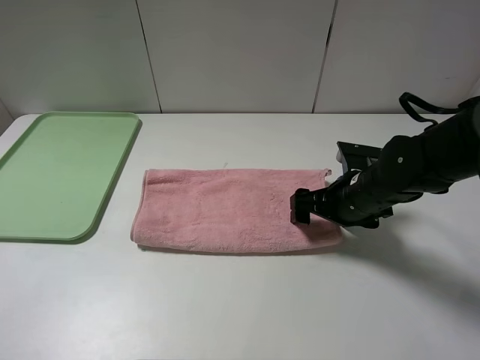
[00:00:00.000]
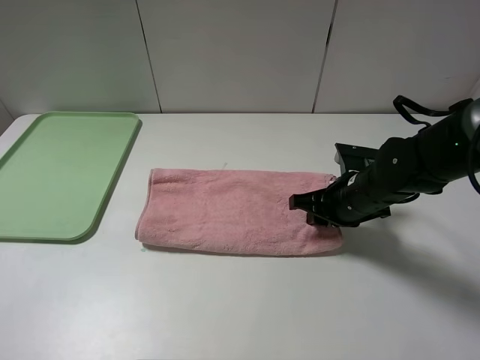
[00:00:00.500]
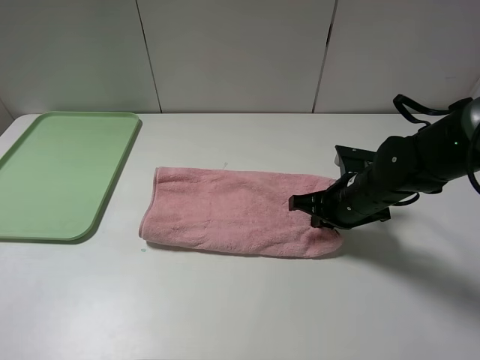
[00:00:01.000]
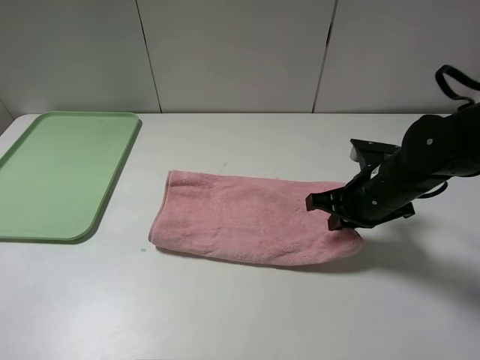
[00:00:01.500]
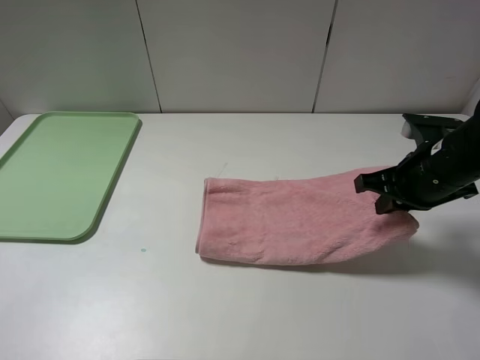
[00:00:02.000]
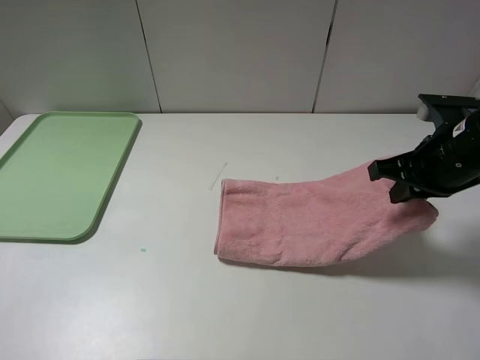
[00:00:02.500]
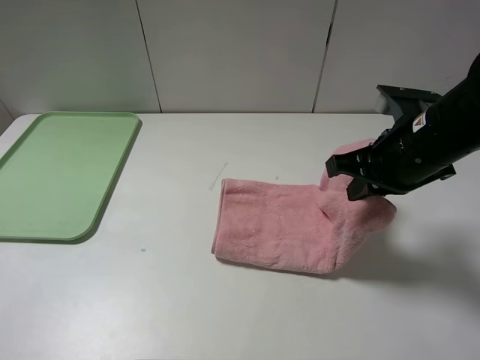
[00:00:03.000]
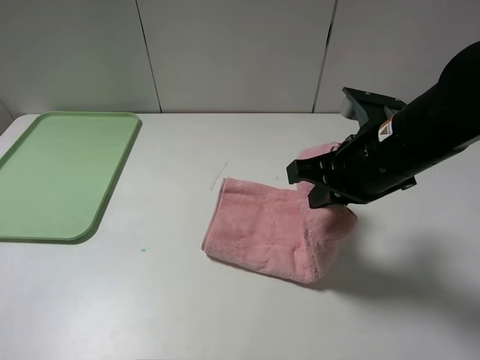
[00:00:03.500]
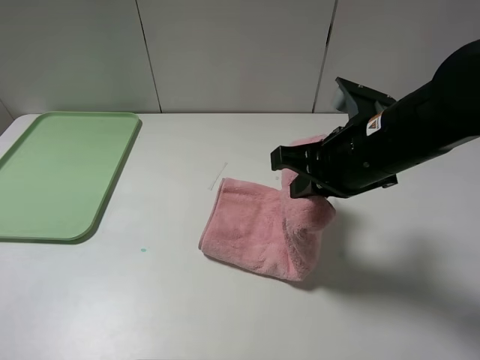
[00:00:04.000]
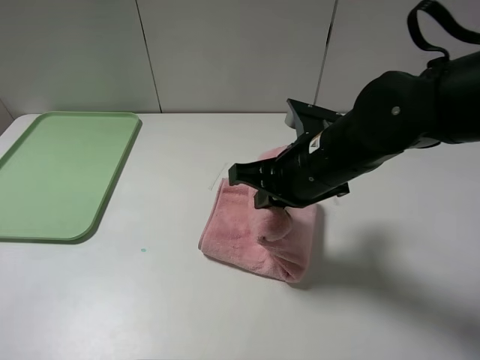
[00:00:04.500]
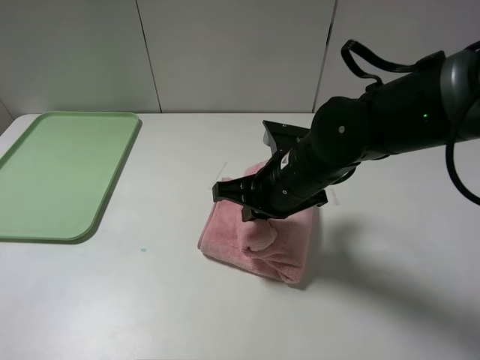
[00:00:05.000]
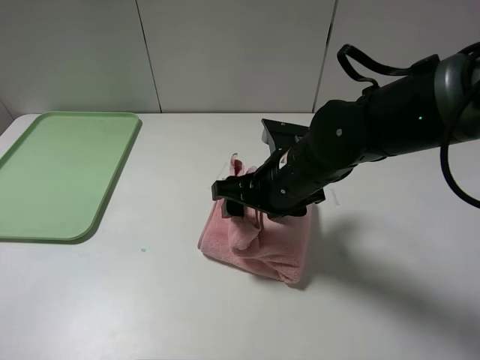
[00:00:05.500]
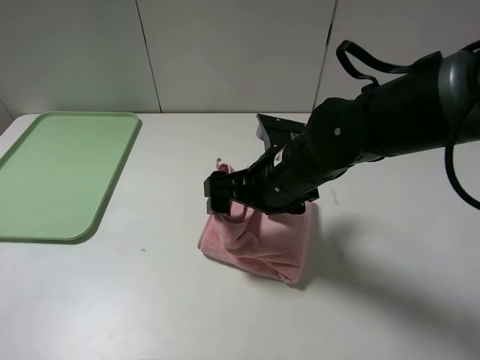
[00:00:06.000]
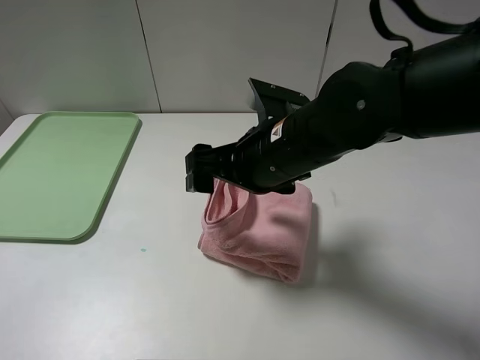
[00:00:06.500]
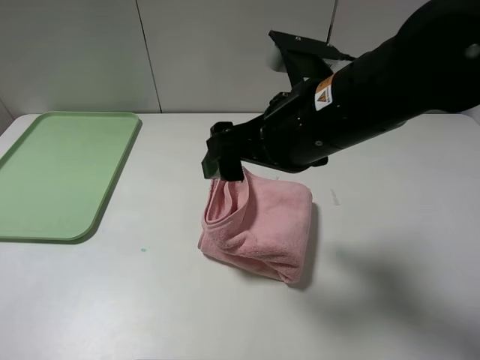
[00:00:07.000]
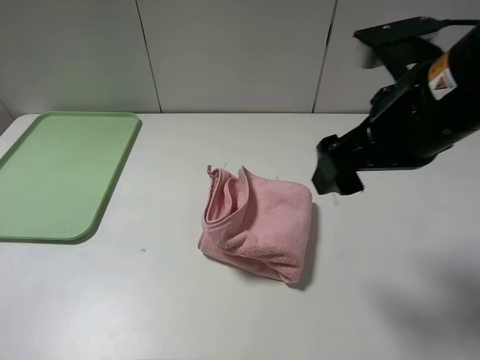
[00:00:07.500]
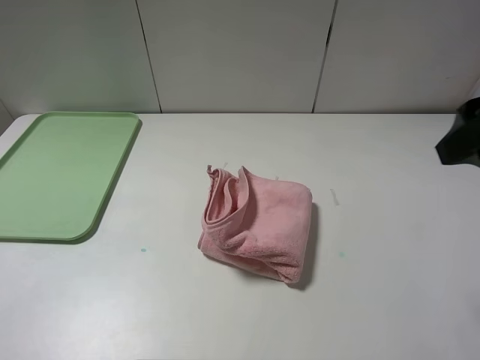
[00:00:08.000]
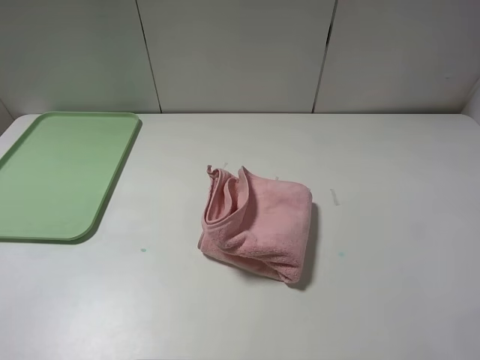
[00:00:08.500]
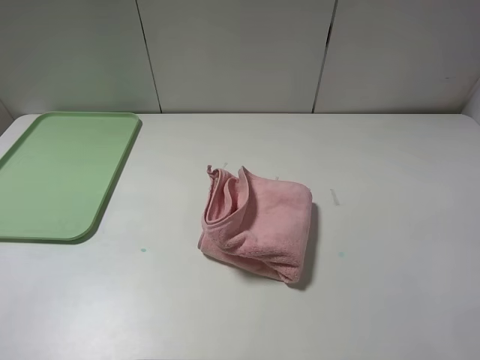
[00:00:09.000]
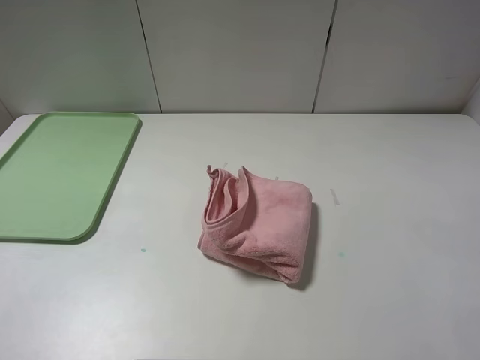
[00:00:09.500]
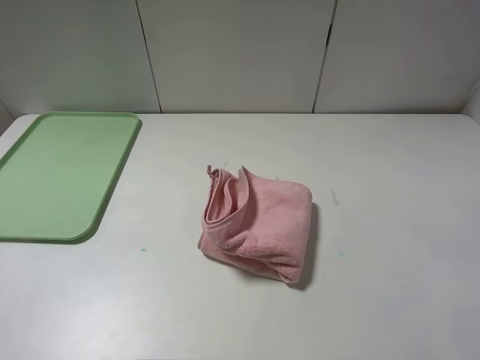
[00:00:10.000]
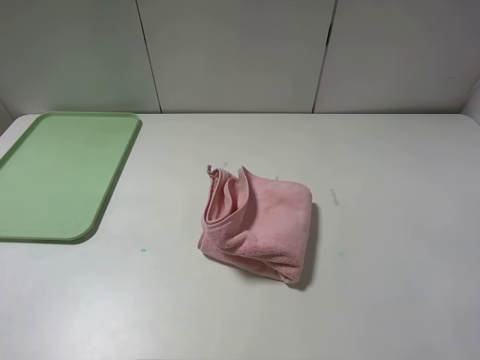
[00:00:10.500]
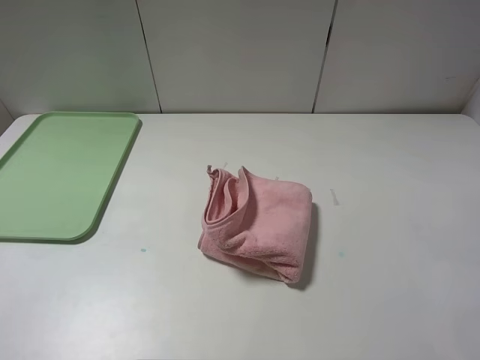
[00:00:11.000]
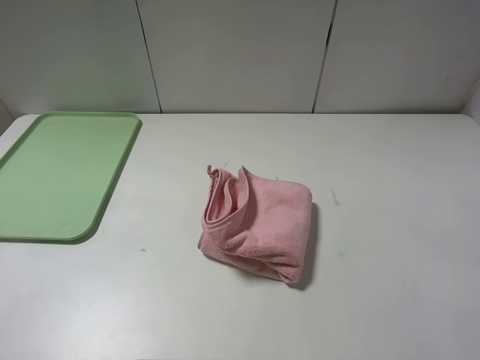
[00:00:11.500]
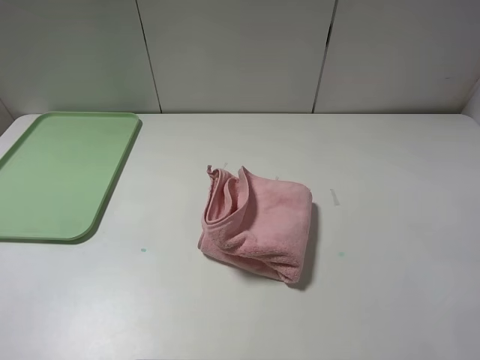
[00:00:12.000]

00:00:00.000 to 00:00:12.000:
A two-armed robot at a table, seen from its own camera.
Step, 00:00:00.000 to 00:00:07.000: Fold the pink towel from right to left with right gripper.
00:00:00.000 to 00:00:02.000: The right gripper moves upward and to the right, about 10 cm, and closes its fingers.
00:00:02.000 to 00:00:04.000: The right gripper is displaced to the left and upward by some 10 cm.
00:00:04.000 to 00:00:06.000: The right gripper moves to the left and downward, about 10 cm, and opens.
00:00:06.000 to 00:00:08.000: The right gripper travels to the right, upward and backward by about 25 cm.
00:00:08.000 to 00:00:10.000: The right gripper goes some 15 cm backward.

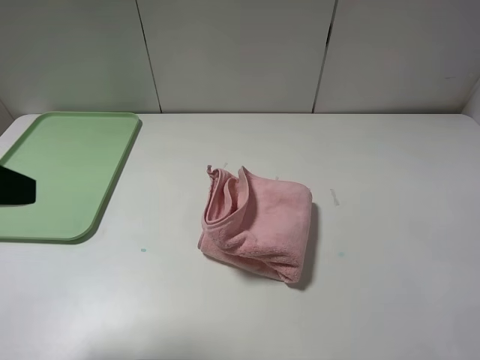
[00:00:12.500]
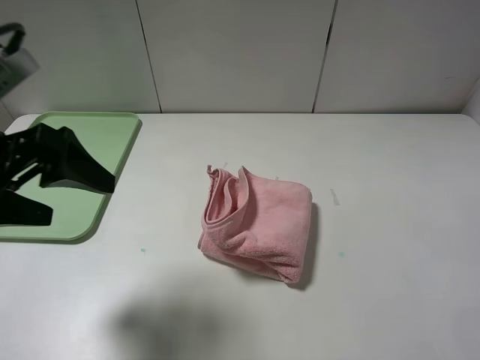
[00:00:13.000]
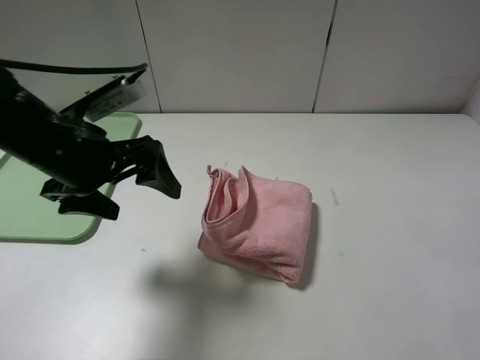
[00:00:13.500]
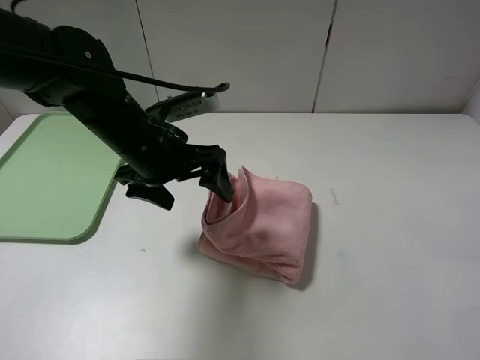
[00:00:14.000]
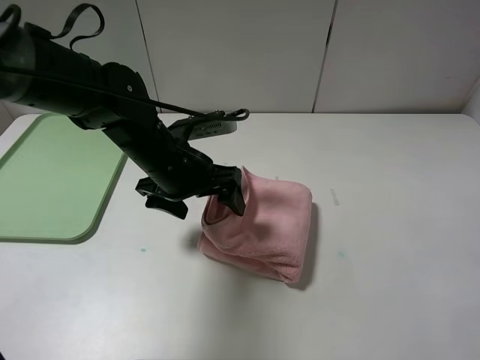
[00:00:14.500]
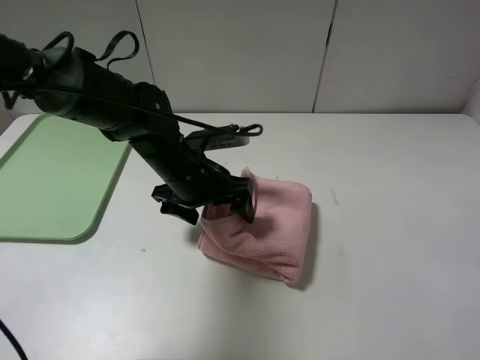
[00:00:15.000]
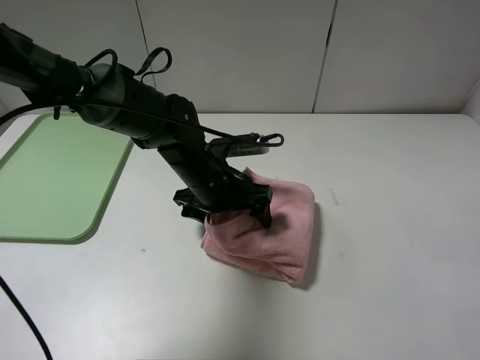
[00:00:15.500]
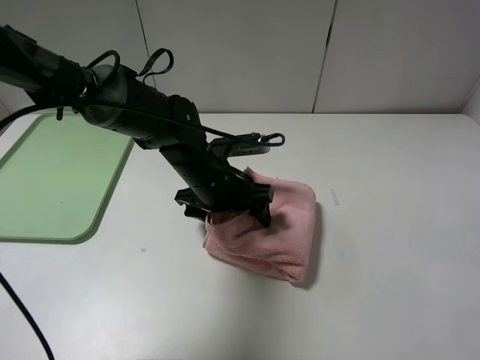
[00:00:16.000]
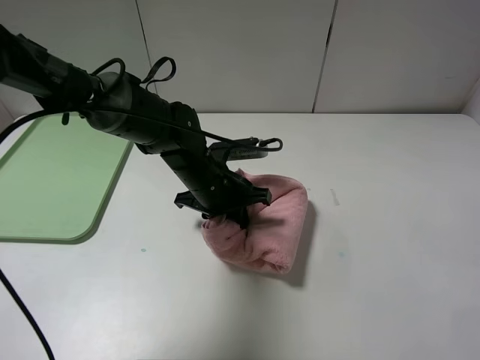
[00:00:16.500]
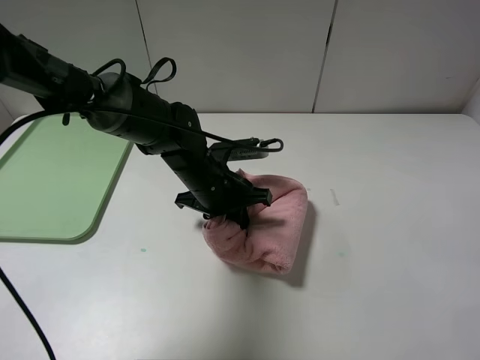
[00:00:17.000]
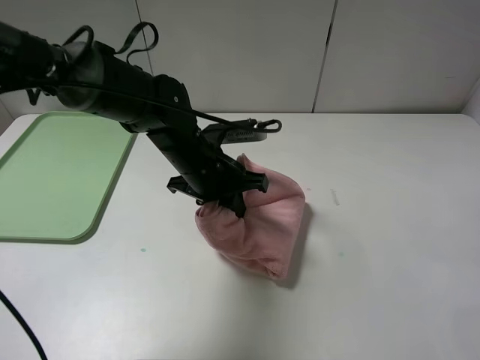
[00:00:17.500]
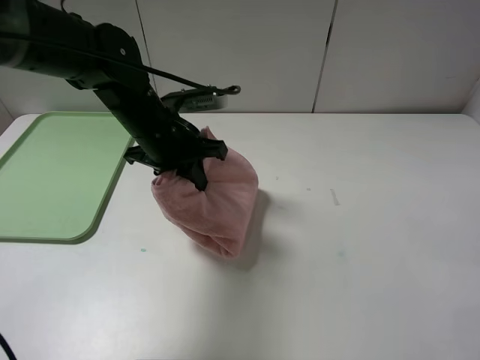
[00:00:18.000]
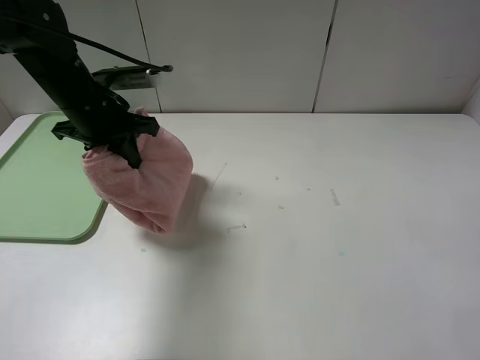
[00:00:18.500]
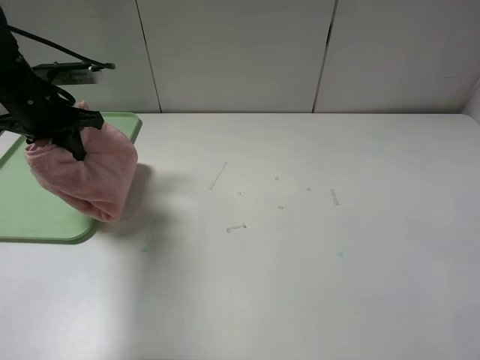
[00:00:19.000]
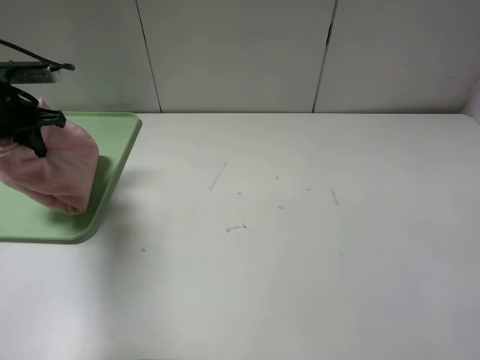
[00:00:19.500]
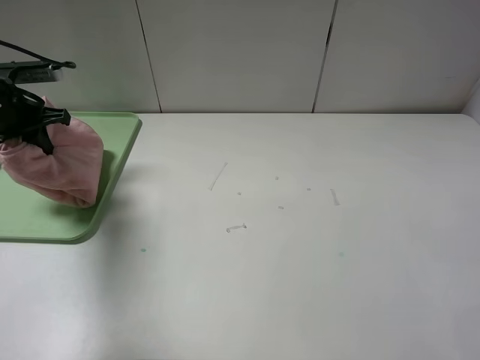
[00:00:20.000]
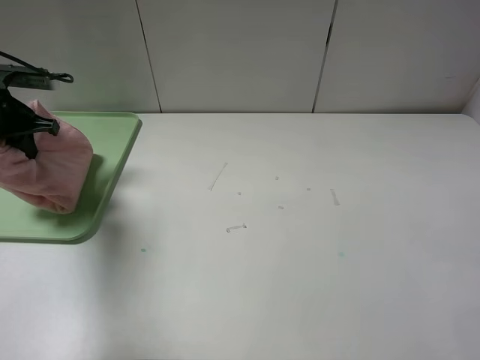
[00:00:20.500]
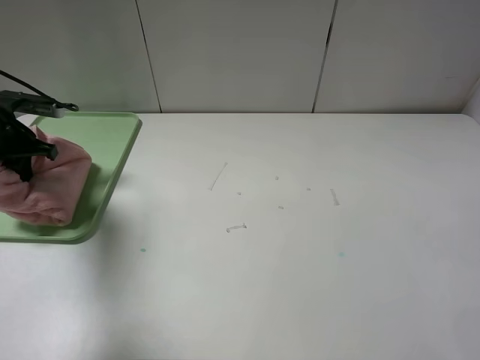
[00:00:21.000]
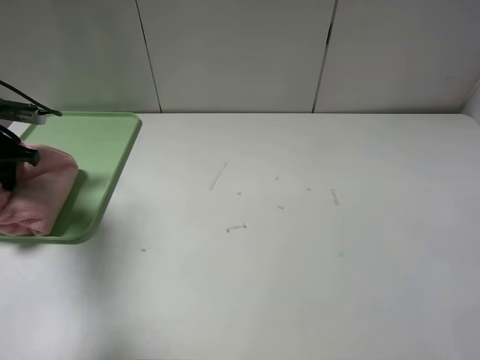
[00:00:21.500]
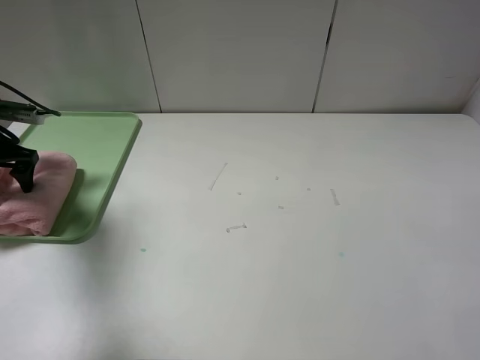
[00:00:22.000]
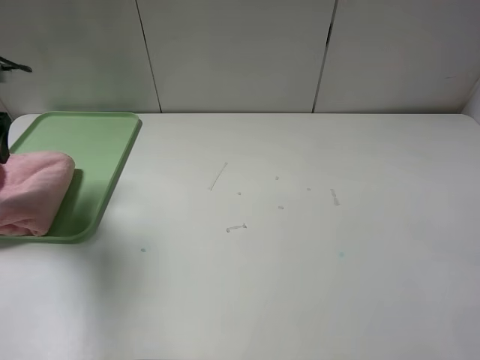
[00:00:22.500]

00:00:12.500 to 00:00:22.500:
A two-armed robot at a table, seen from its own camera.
Step, 00:00:12.500 to 00:00:22.500: Place the folded pink towel on the tray with the left gripper.
00:00:12.500 to 00:00:14.500: The left gripper travels forward, to the right and downward by approximately 30 cm.
00:00:14.500 to 00:00:16.500: The left gripper travels downward by roughly 5 cm, and closes its fingers.
00:00:16.500 to 00:00:18.500: The left gripper travels to the left and upward by about 20 cm.
00:00:18.500 to 00:00:20.500: The left gripper heads to the left, covering about 15 cm.
00:00:20.500 to 00:00:22.500: The left gripper is displaced upward by roughly 5 cm, and opens its fingers.

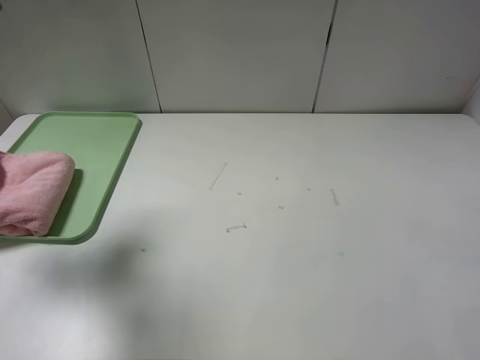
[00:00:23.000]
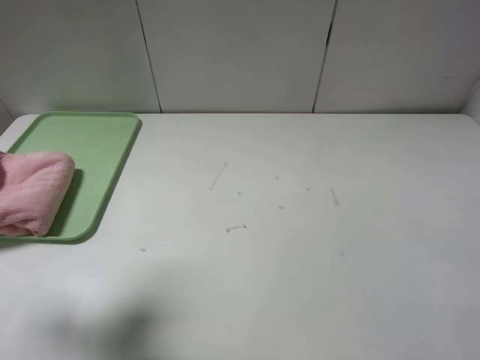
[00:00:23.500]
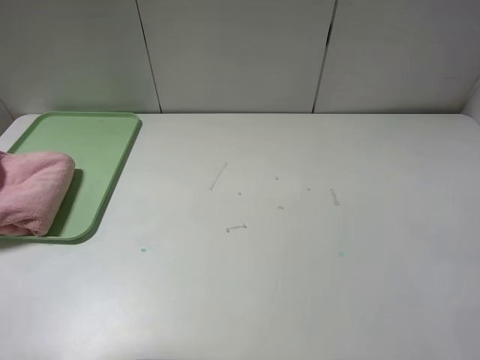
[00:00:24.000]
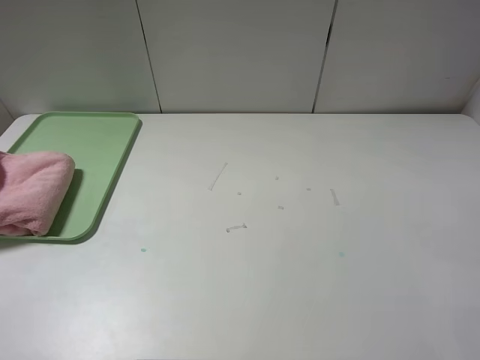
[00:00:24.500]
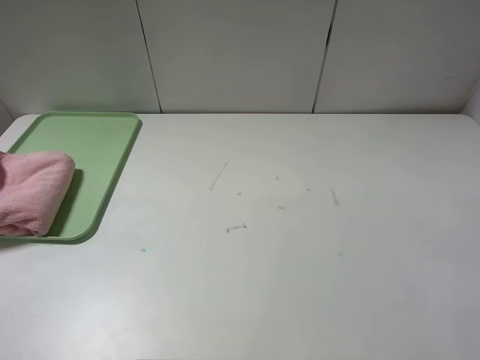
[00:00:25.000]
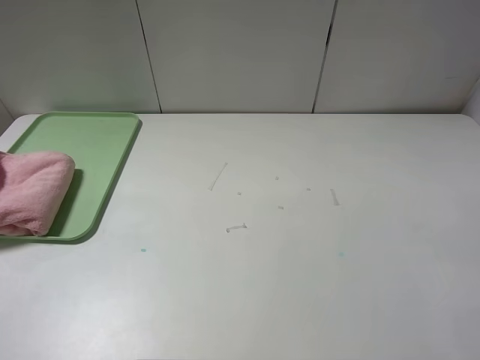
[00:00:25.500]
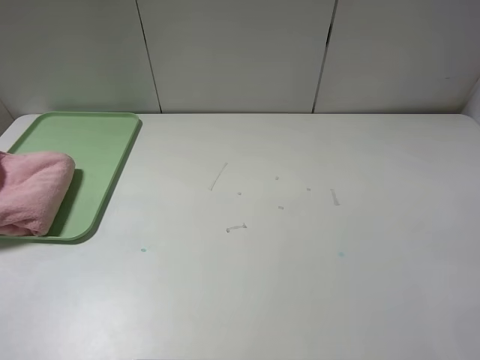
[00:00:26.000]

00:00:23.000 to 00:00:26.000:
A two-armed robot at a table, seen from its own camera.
00:00:23.000 to 00:00:24.500: The left gripper moves backward, about 25 cm.
